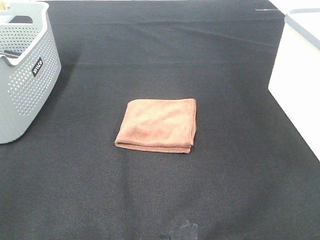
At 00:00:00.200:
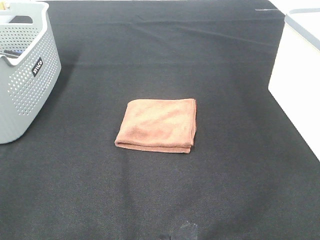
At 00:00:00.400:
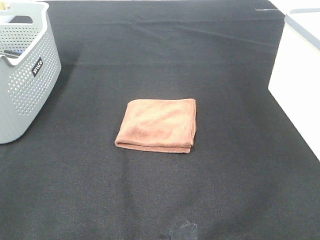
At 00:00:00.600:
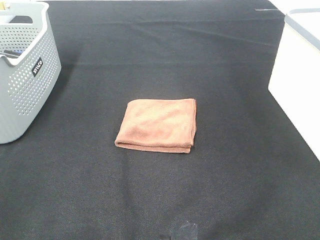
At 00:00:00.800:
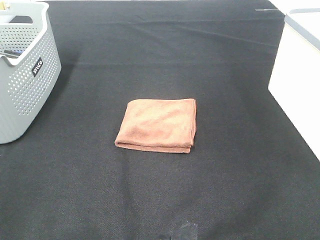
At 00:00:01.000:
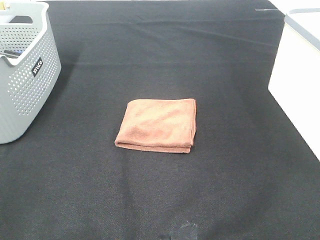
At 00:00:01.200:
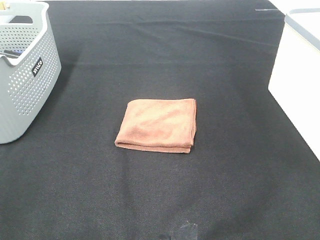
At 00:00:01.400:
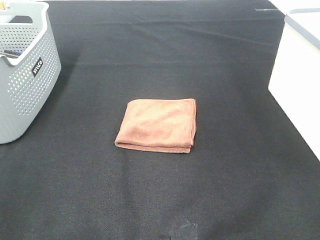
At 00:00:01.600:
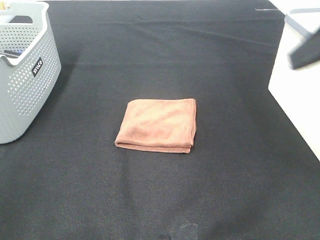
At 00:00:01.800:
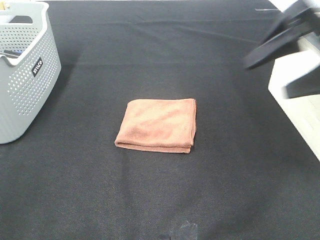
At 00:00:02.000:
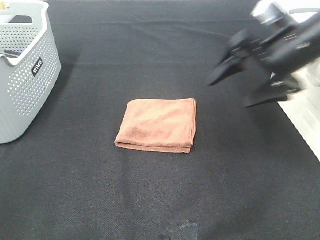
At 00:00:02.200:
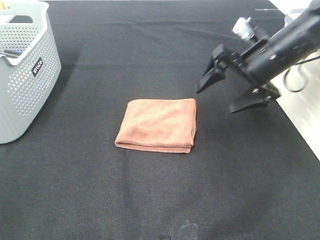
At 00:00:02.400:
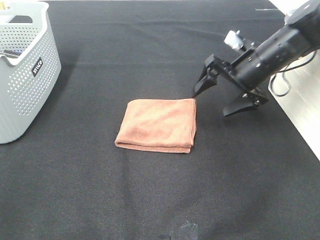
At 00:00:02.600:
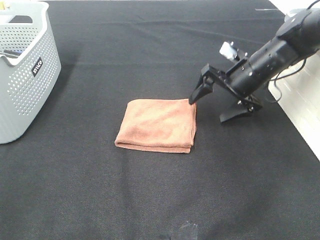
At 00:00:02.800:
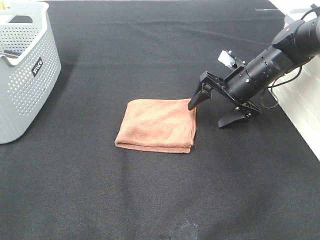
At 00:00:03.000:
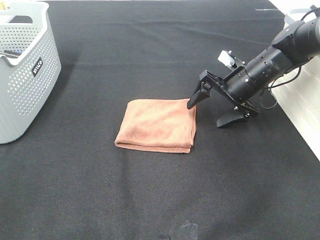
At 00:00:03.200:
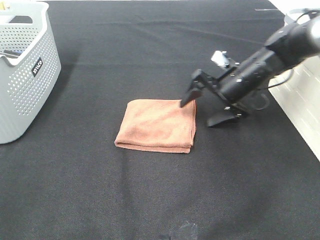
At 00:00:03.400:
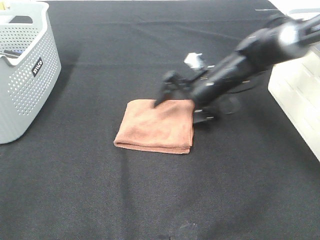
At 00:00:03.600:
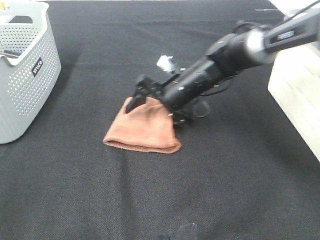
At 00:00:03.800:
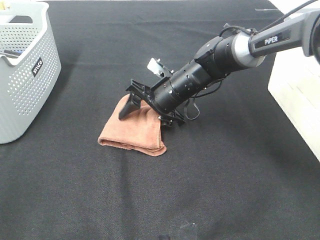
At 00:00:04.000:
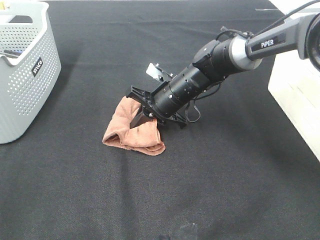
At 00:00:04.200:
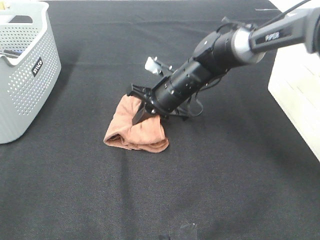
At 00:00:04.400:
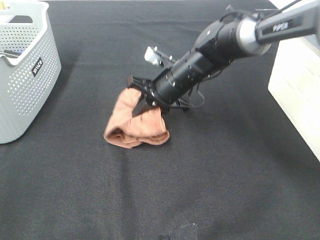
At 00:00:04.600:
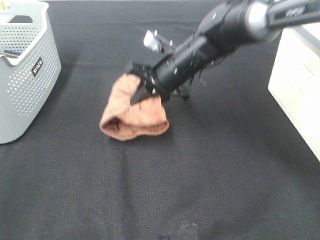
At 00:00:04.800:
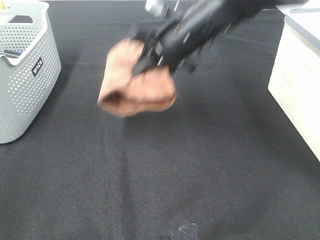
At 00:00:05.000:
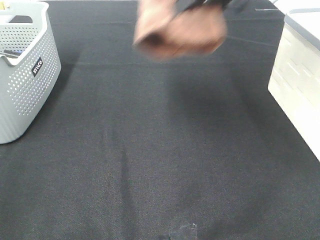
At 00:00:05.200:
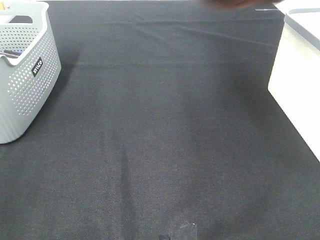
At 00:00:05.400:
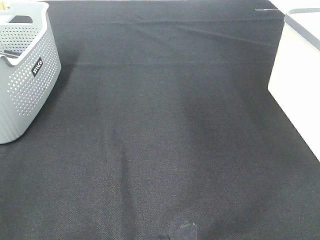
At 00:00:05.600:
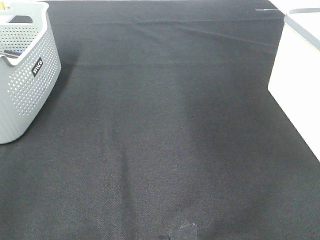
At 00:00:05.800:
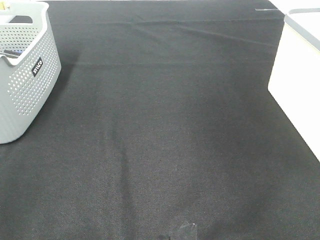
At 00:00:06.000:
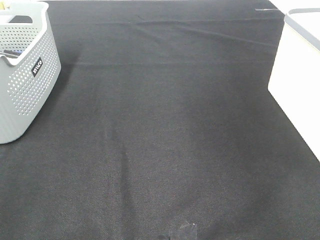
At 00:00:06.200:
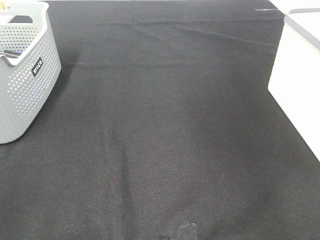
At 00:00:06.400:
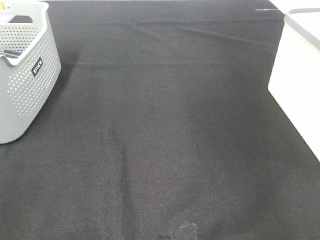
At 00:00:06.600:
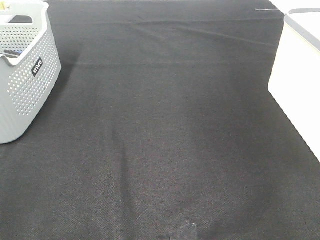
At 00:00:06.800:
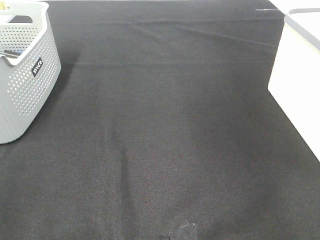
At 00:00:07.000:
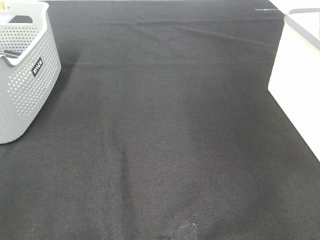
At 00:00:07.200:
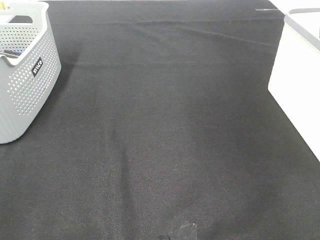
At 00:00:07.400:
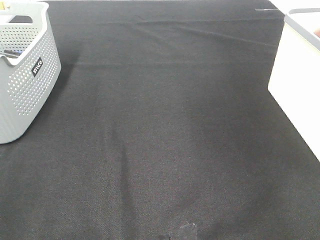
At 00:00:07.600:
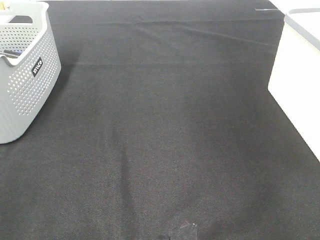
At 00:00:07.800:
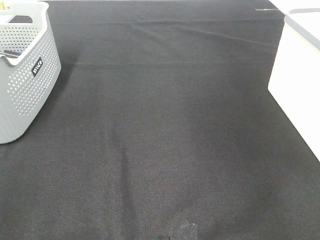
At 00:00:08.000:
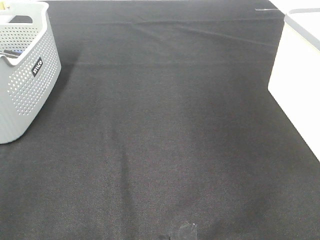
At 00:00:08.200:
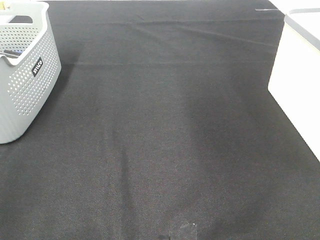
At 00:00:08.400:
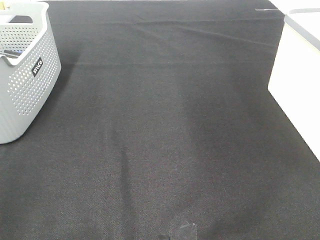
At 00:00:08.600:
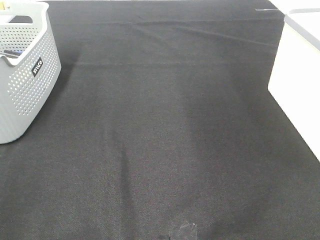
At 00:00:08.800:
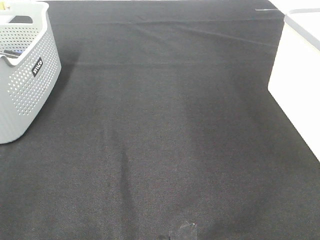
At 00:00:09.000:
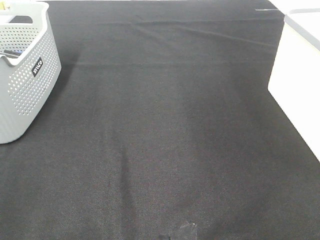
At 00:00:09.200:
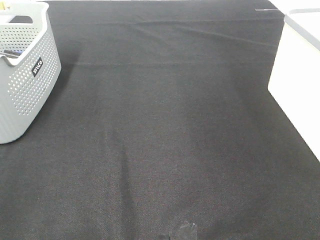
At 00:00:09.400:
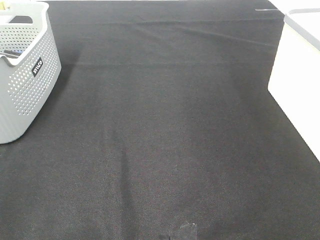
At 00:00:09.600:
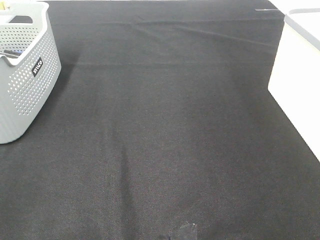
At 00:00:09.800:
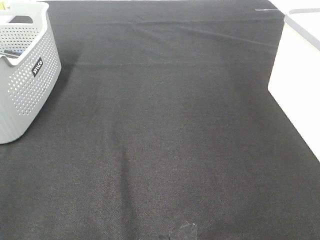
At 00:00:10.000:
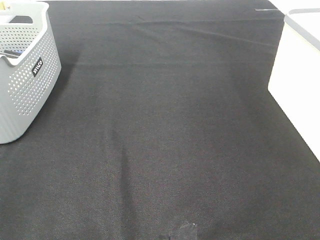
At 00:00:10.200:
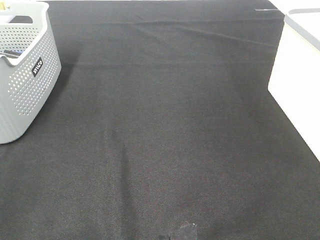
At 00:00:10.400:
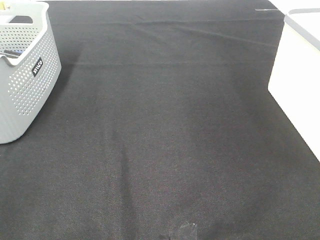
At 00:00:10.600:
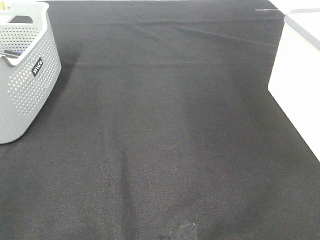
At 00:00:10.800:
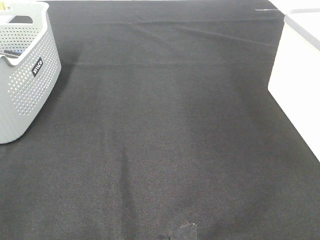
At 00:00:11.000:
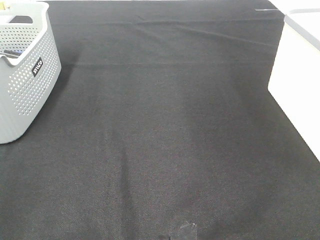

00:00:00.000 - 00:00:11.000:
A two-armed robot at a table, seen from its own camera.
Step, 00:00:00.000 - 00:00:04.000: Right hand: grab the folded brown towel.
Step, 00:00:04.200 - 00:00:07.600: Right hand: place the brown towel in right basket.
00:00:00.000 - 00:00:01.600: The right gripper moves forward, approximately 20 cm.
00:00:01.600 - 00:00:03.200: The right gripper is displaced downward and forward by roughly 30 cm.
00:00:03.200 - 00:00:04.800: The right gripper moves upward and to the left, approximately 20 cm, and closes up.
00:00:04.800 - 00:00:06.200: The right gripper shifts approximately 35 cm to the right.
00:00:09.400 - 00:00:11.000: The two grippers keep their place.

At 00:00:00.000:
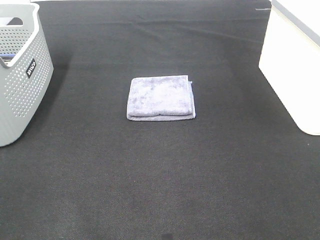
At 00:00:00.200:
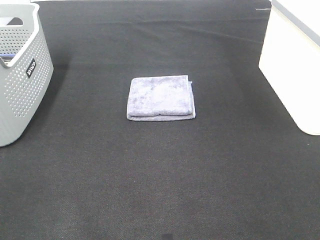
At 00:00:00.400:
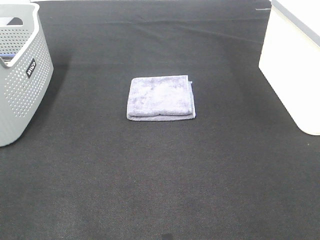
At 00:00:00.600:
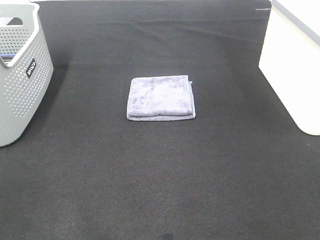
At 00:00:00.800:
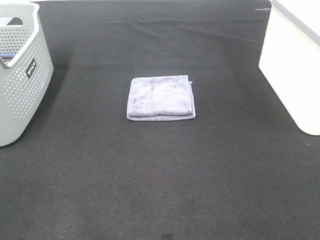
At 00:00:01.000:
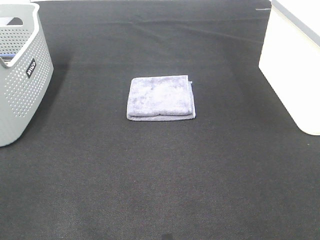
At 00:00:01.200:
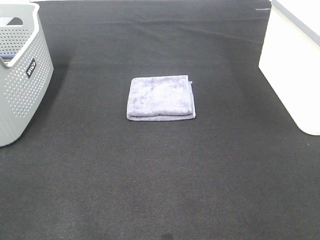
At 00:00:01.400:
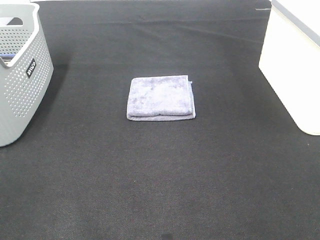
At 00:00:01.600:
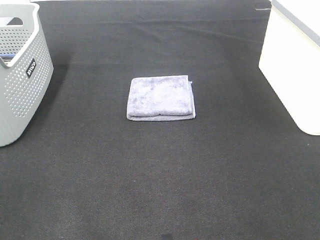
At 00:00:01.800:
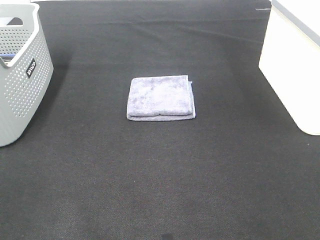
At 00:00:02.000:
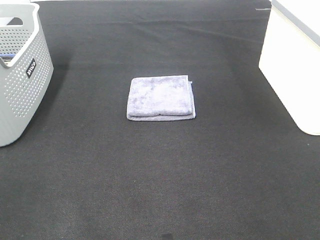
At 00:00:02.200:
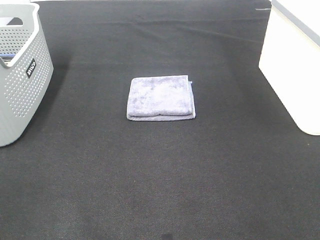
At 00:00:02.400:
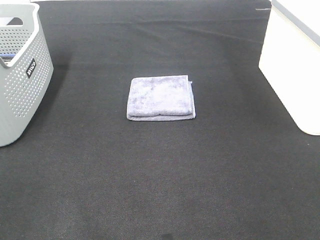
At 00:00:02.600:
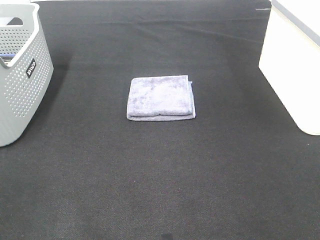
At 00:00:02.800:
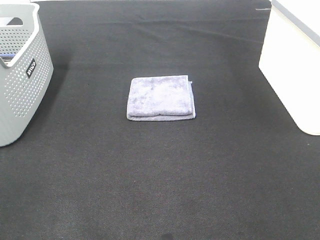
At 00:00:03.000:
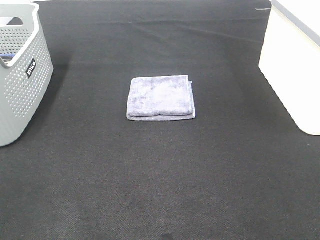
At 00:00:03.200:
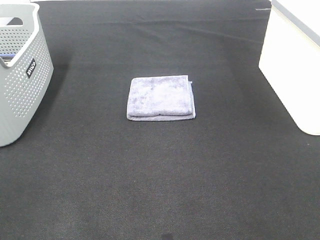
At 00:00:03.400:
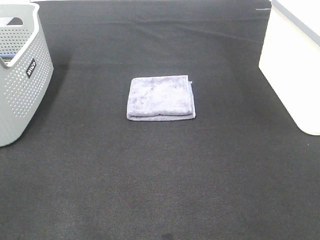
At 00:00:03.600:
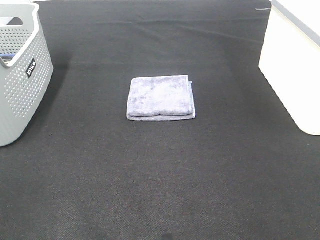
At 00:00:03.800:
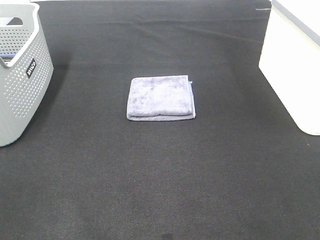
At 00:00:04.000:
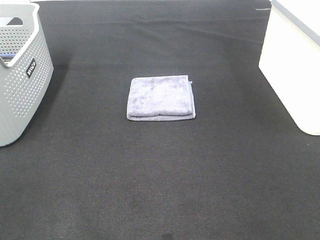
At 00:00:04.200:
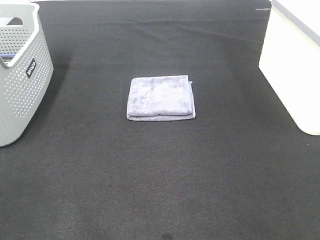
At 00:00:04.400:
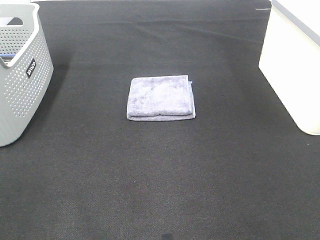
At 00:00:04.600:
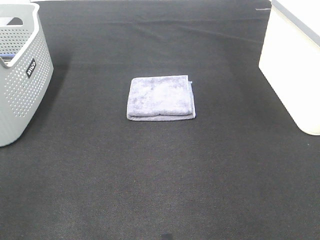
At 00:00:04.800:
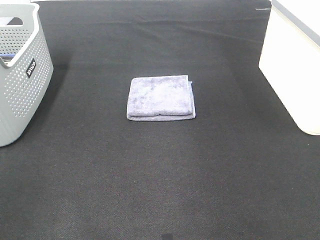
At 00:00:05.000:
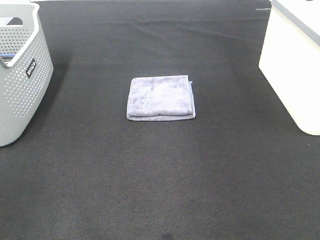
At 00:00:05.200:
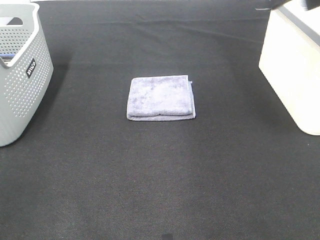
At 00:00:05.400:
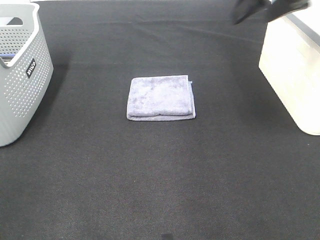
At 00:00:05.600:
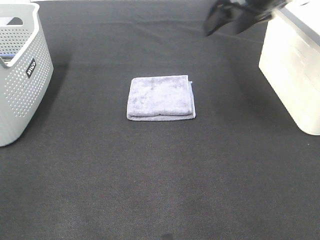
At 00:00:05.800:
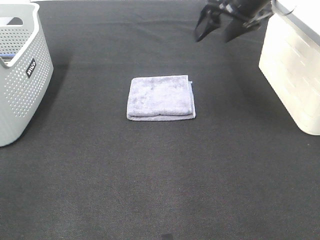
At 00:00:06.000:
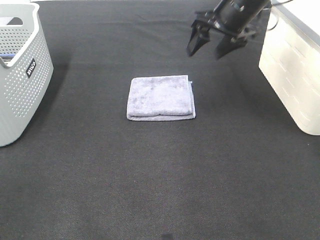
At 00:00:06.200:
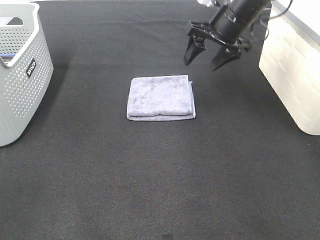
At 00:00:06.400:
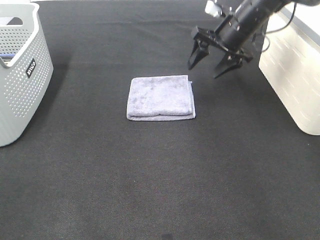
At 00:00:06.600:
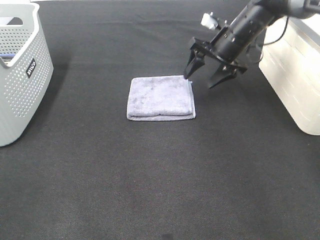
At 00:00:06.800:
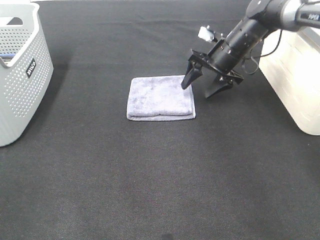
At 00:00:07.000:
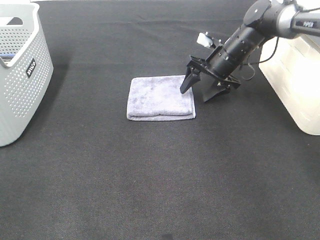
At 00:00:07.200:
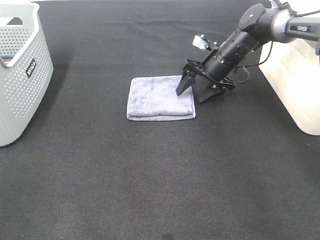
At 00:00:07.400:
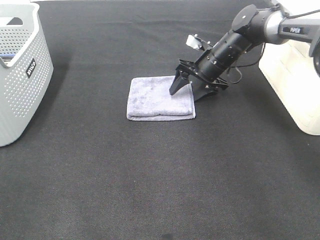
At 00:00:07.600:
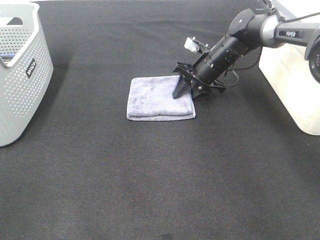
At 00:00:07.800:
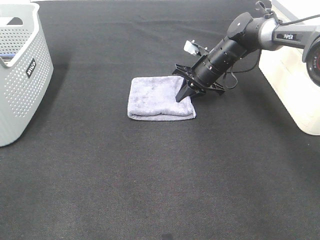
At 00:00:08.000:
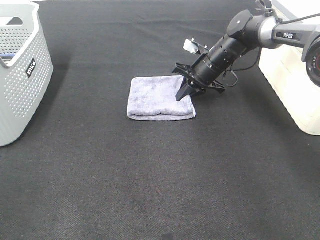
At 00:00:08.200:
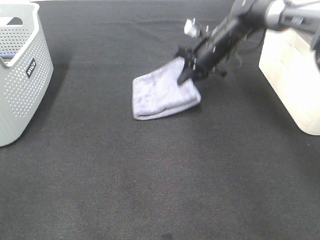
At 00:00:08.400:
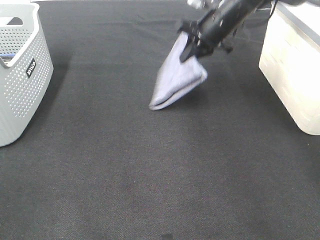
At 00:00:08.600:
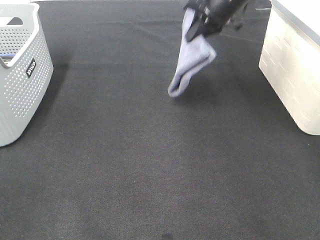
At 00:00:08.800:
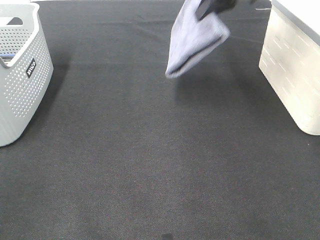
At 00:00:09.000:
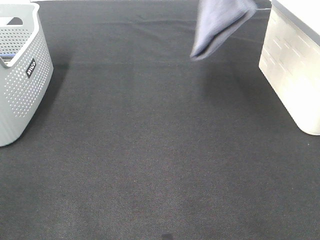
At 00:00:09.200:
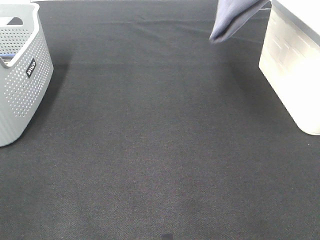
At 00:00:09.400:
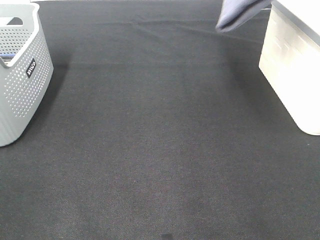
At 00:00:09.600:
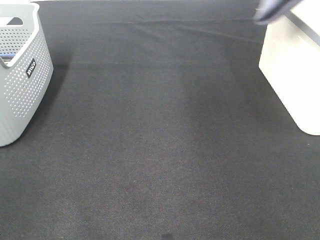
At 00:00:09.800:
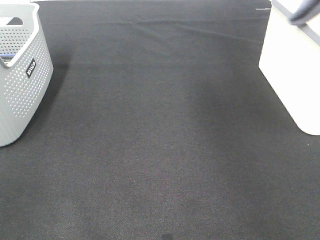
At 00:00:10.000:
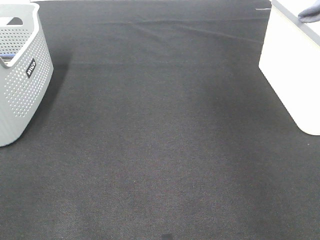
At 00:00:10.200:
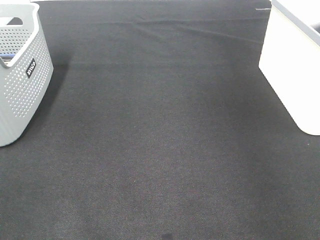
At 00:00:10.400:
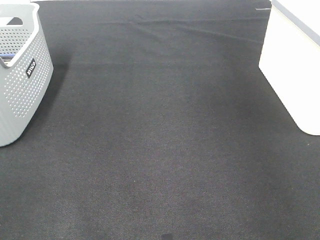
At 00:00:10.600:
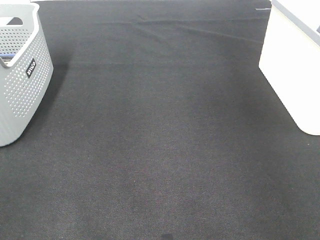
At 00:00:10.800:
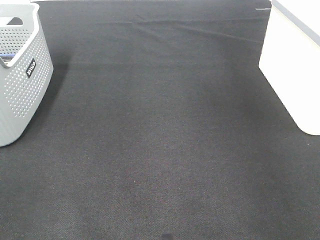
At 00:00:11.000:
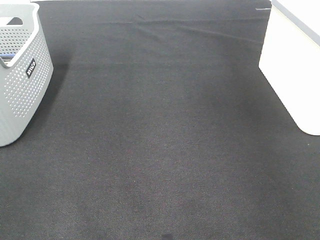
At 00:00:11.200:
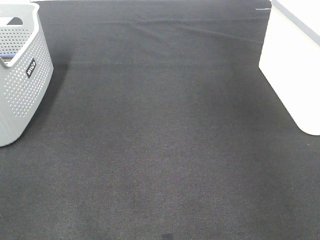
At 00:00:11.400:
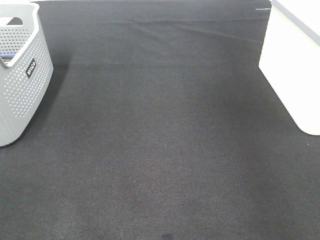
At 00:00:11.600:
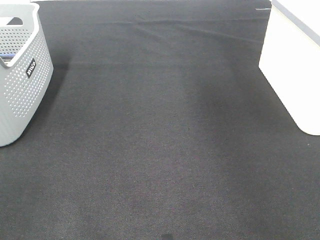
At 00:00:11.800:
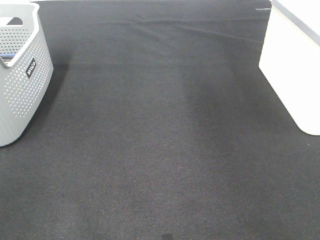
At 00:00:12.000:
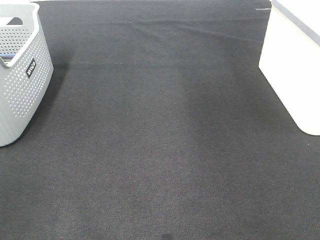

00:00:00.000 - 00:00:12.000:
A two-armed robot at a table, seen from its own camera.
Step, 00:00:00.000 - 00:00:07.800: Right hand: grab the folded grey towel.
Step, 00:00:08.000 - 00:00:11.000: Right hand: place the grey towel in right basket.
00:00:00.000 - 00:00:03.000: Both grippers stay about where they are.
00:00:04.400 - 00:00:06.000: The right gripper is displaced forward and to the left by about 35 cm.
00:00:06.000 - 00:00:07.600: The right gripper moves downward, roughly 15 cm, and closes.
00:00:07.600 - 00:00:09.000: The right gripper shifts about 30 cm upward, and closes up.
00:00:09.000 - 00:00:10.400: The right gripper goes roughly 25 cm to the right.
